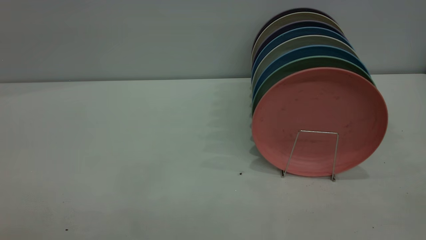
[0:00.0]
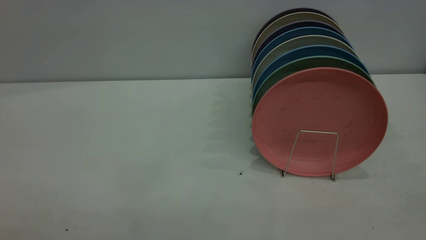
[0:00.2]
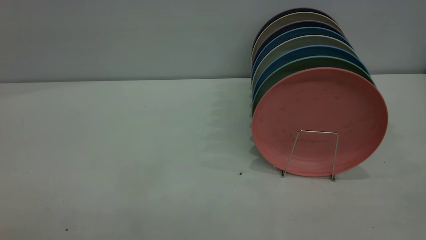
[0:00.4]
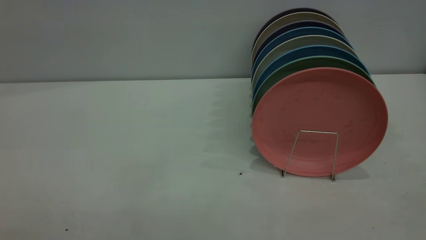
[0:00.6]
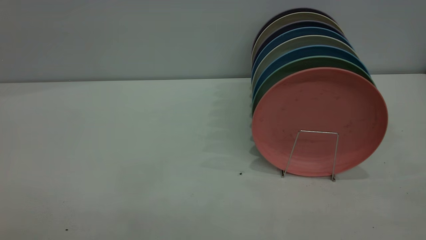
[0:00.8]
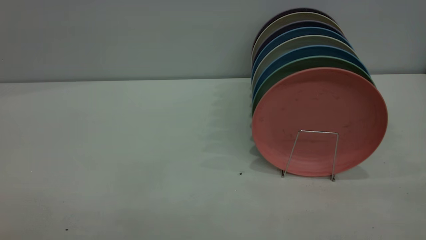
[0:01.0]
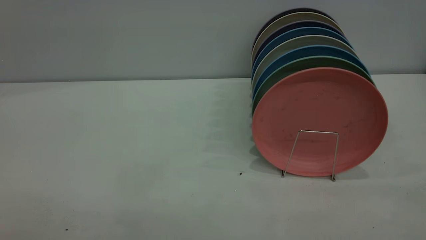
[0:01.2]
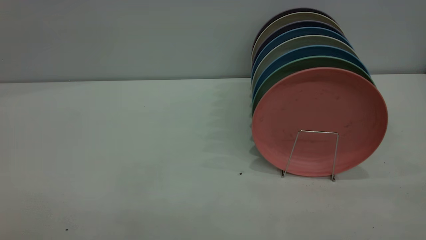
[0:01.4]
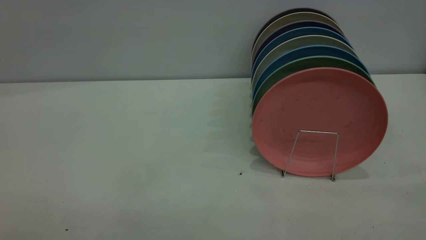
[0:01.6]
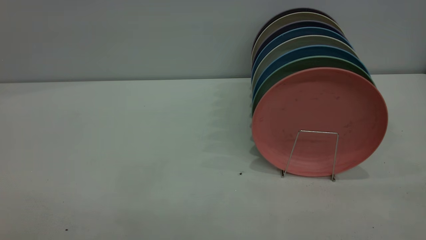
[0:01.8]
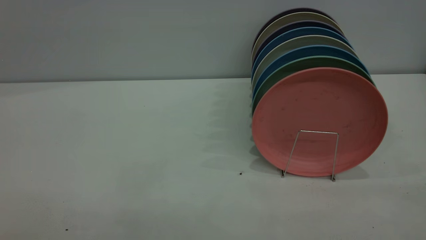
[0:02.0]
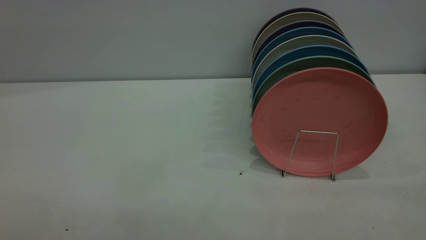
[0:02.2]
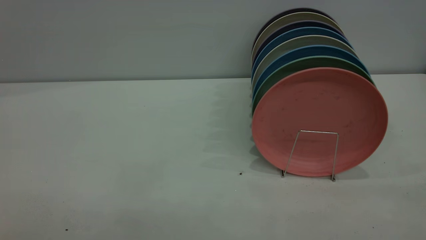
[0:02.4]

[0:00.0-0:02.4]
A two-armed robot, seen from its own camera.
Task of the whole recording: put the plate on the plate rack.
0:01.2 to 0:02.4: Neither gripper changes place.
